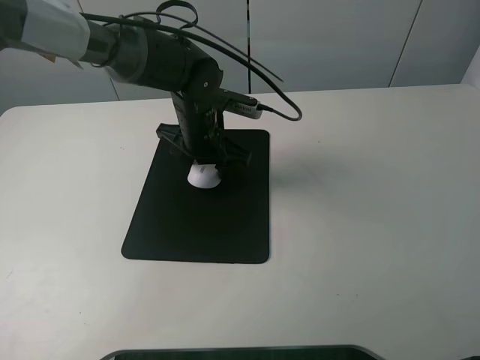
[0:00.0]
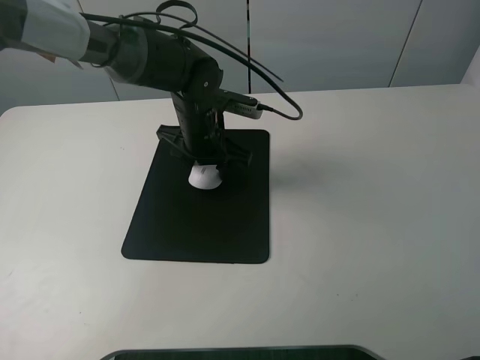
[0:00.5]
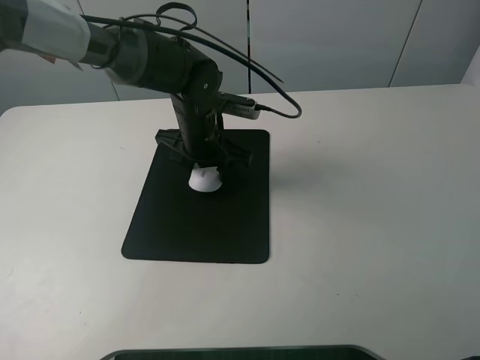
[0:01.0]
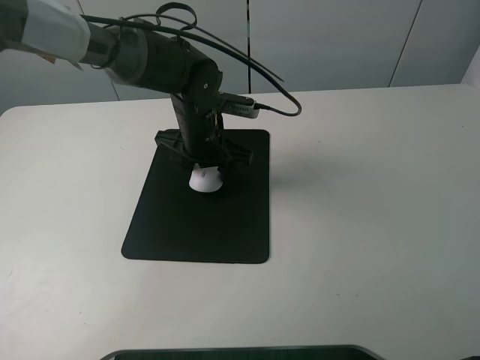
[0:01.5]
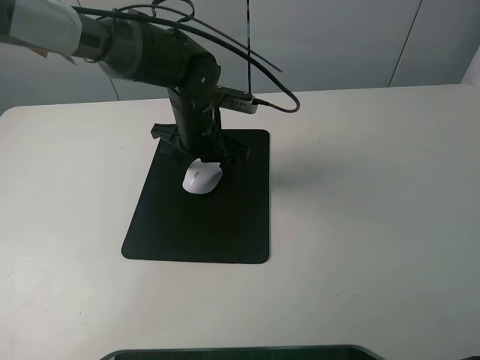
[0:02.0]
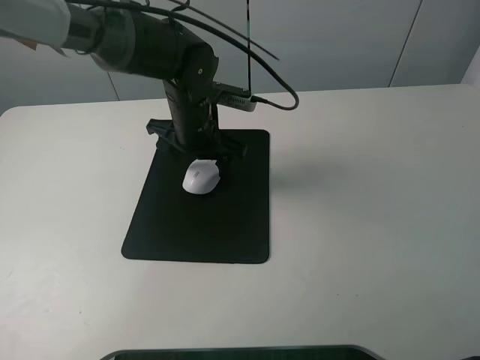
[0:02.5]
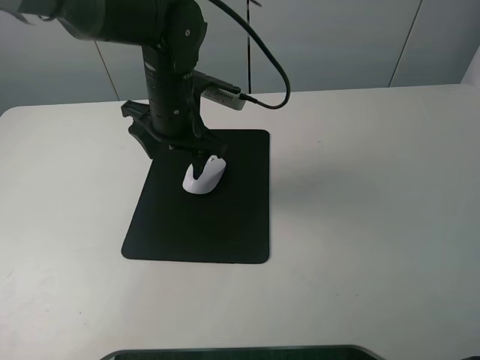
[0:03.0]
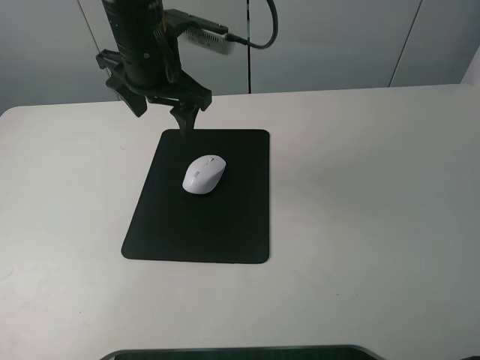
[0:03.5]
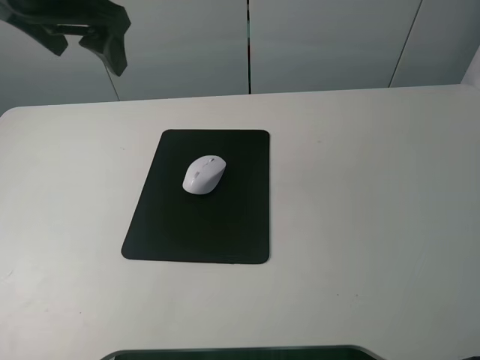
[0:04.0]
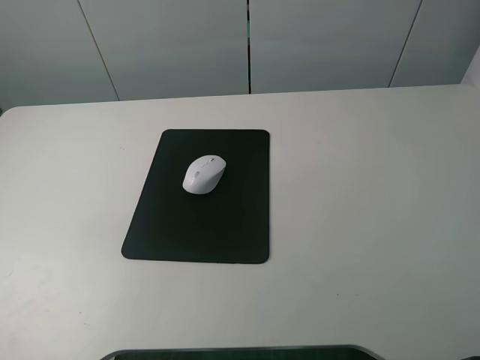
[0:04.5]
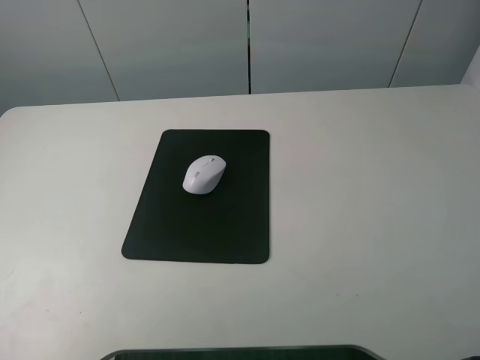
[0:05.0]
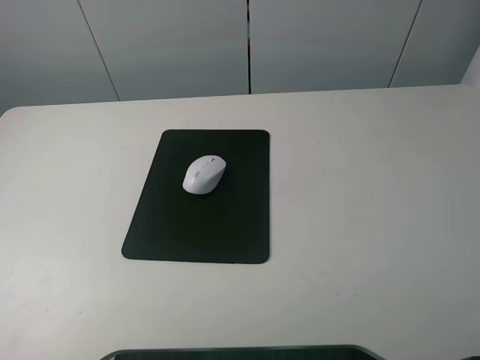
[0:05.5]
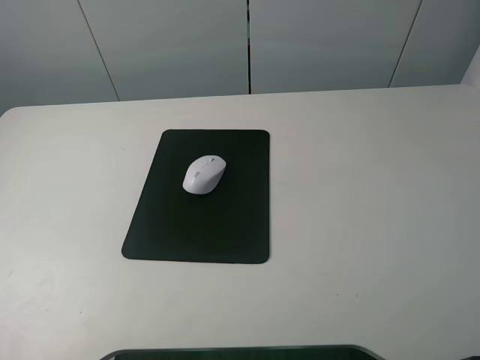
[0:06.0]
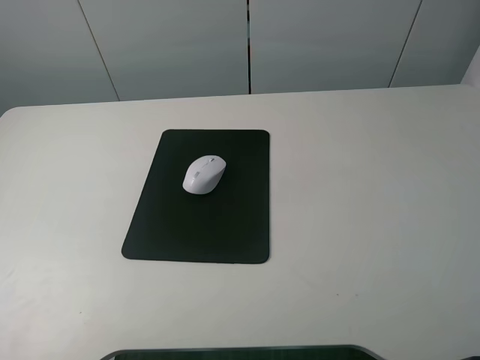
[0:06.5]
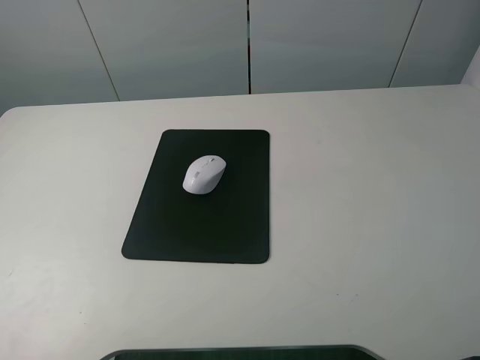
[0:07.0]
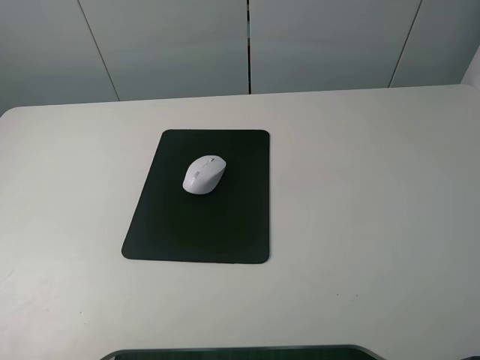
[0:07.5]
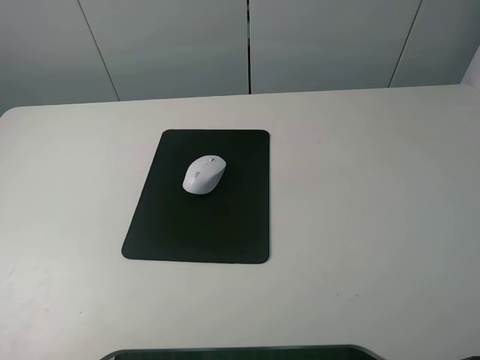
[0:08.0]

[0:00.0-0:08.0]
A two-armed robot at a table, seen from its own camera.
Step, 0:00.0 to 0:02.0: Place the mouse on the mouse mat with the left gripper.
0:00.0 to 0:02.0: The left gripper opens up.
0:02.0 to 0:04.0: The left gripper goes about 25 cm upward and to the left.
0:04.0 to 0:06.0: The left gripper travels backward and to the left by some 35 cm.
